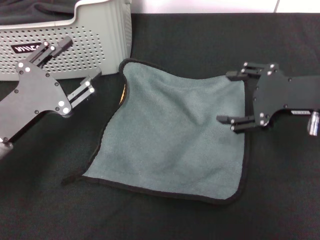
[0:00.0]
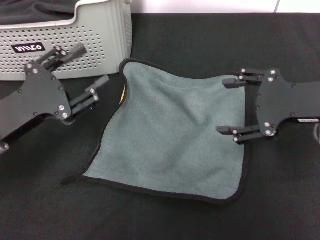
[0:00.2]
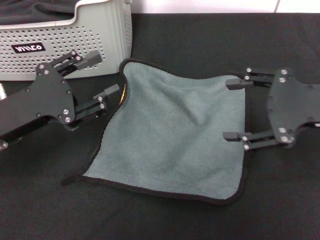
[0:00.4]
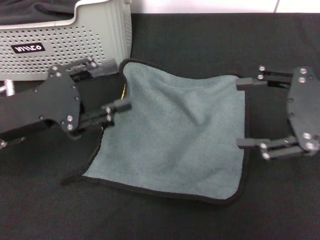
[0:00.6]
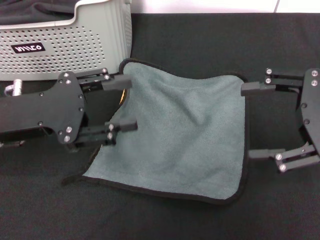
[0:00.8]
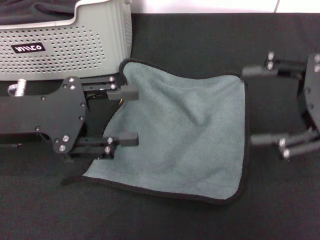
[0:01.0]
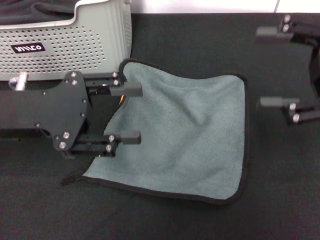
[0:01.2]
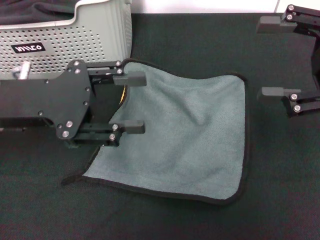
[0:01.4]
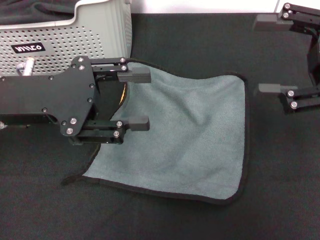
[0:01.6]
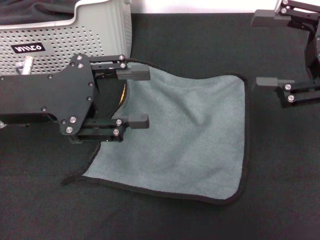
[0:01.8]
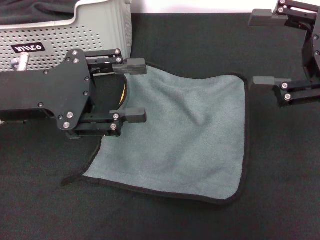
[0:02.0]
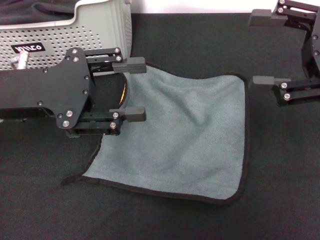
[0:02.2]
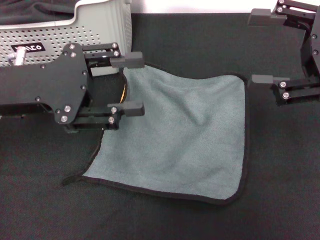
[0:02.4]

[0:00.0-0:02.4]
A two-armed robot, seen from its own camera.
Task of the whole recording: pick up the towel from the storage box and lay it flat on the black tablecloth.
0:00.0 to 0:01.2: The left gripper goes about 10 cm upward; the right gripper moves approximately 5 cm.
0:01.2 to 0:02.4: The grippers move only a little.

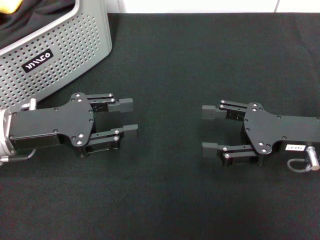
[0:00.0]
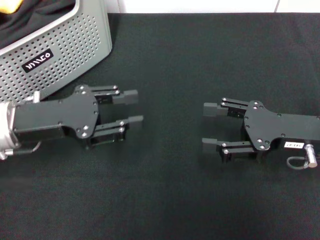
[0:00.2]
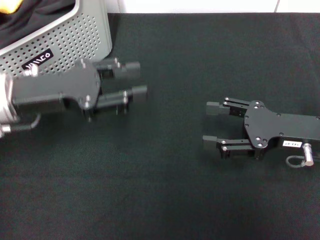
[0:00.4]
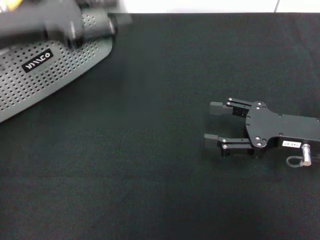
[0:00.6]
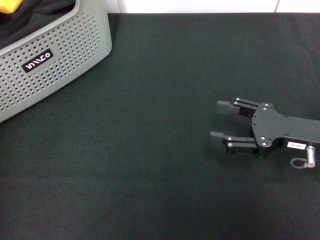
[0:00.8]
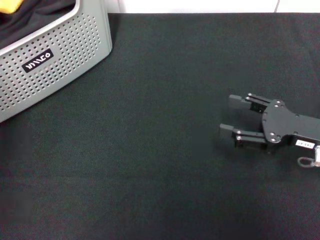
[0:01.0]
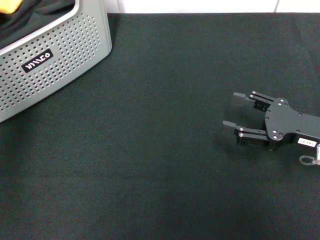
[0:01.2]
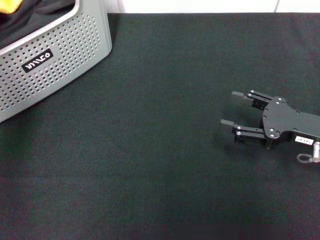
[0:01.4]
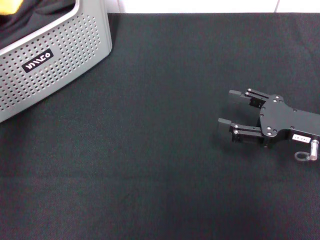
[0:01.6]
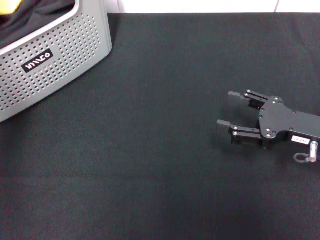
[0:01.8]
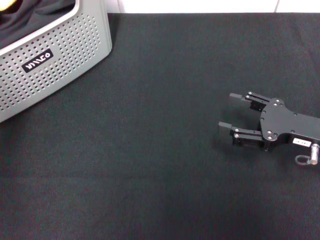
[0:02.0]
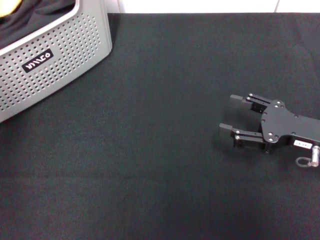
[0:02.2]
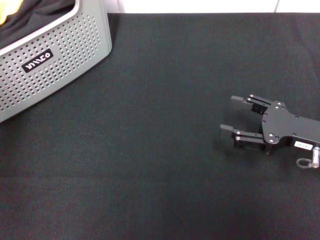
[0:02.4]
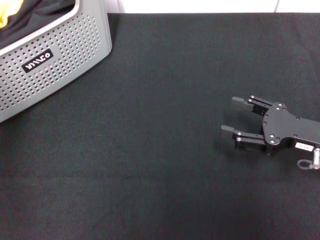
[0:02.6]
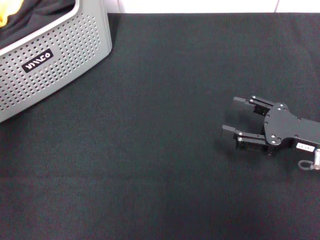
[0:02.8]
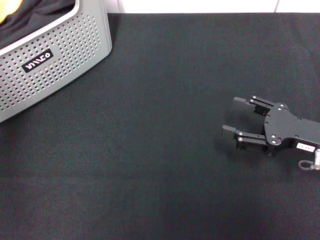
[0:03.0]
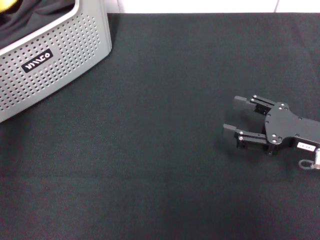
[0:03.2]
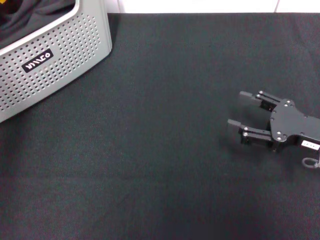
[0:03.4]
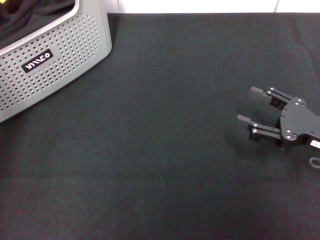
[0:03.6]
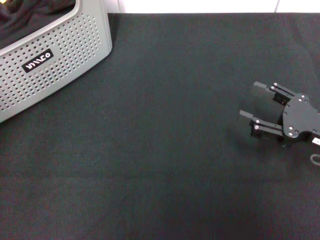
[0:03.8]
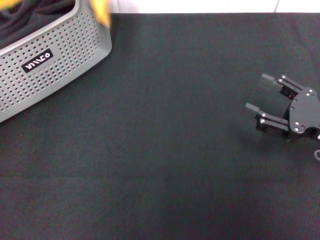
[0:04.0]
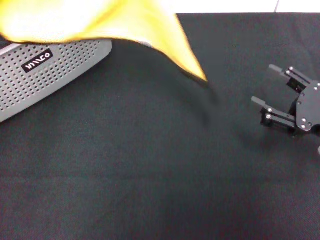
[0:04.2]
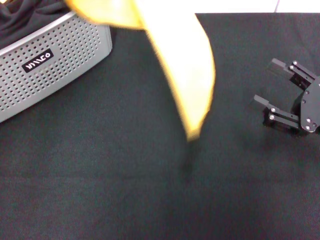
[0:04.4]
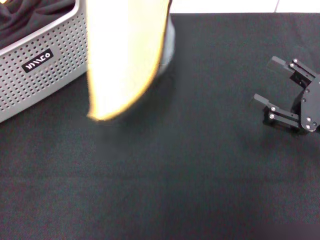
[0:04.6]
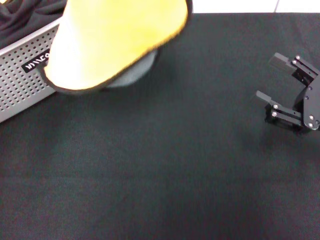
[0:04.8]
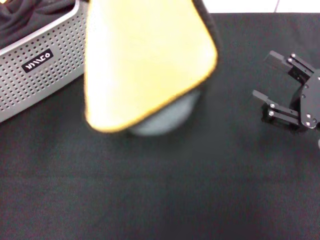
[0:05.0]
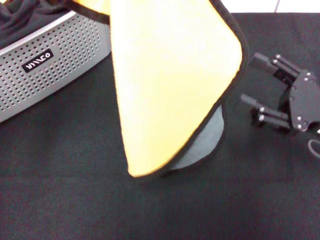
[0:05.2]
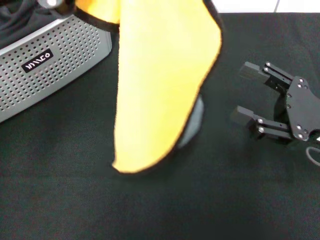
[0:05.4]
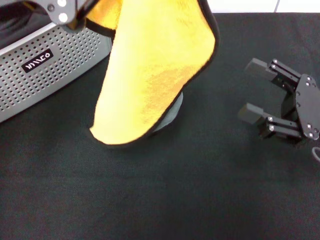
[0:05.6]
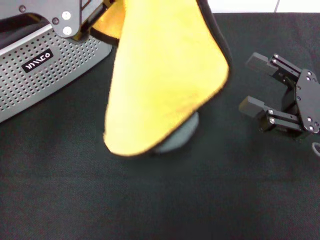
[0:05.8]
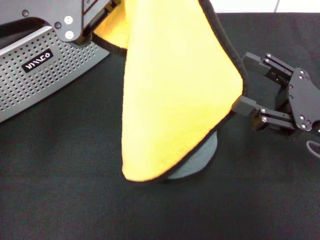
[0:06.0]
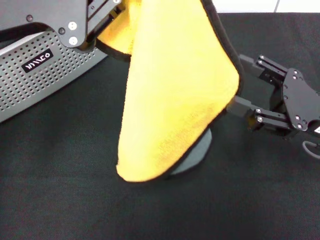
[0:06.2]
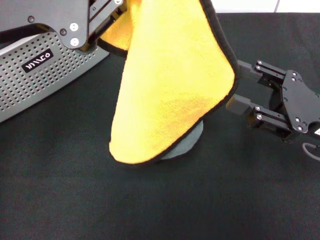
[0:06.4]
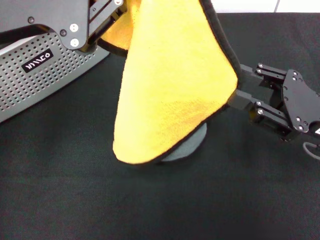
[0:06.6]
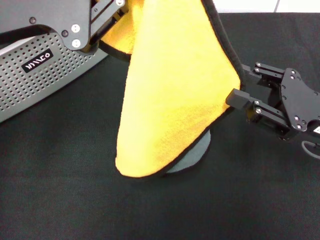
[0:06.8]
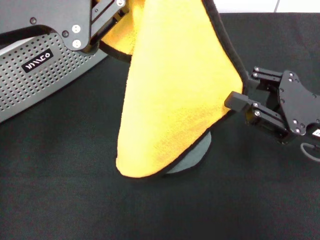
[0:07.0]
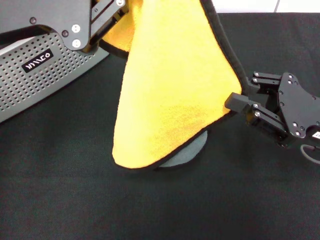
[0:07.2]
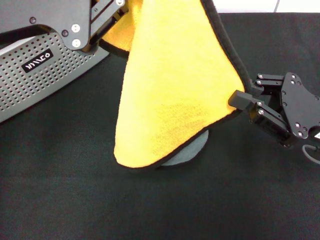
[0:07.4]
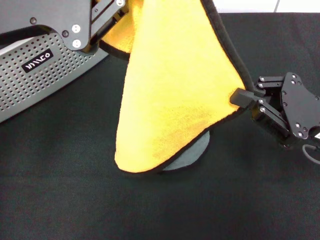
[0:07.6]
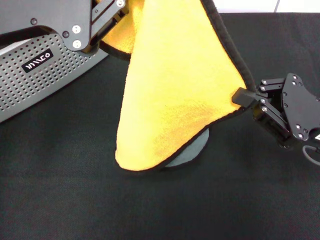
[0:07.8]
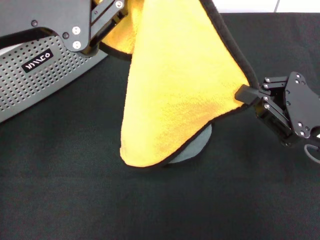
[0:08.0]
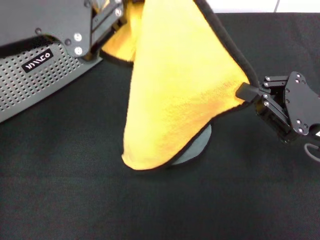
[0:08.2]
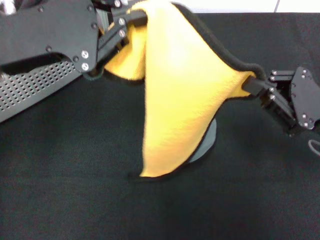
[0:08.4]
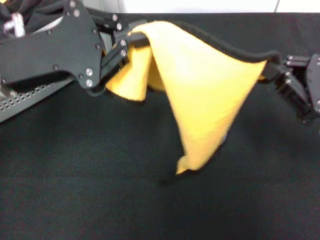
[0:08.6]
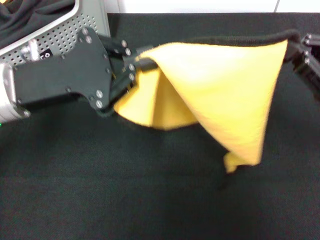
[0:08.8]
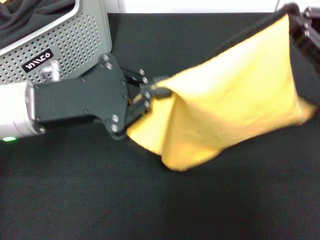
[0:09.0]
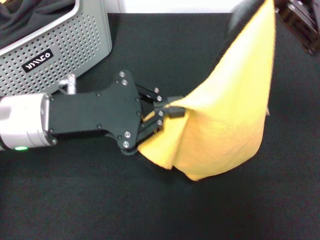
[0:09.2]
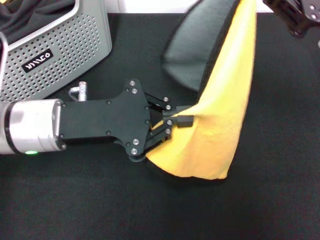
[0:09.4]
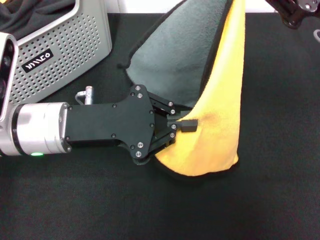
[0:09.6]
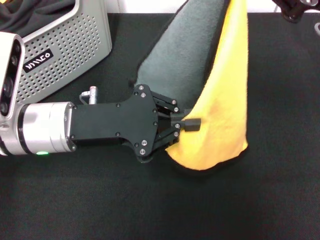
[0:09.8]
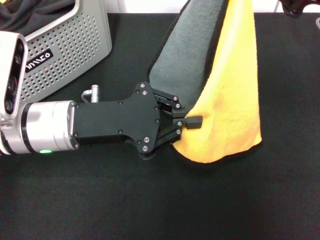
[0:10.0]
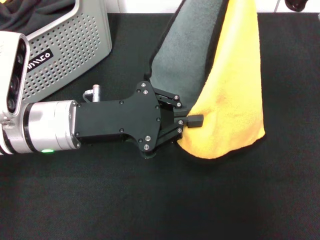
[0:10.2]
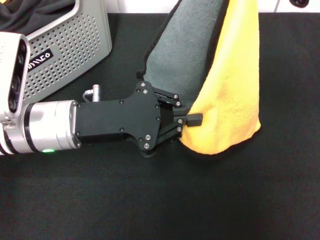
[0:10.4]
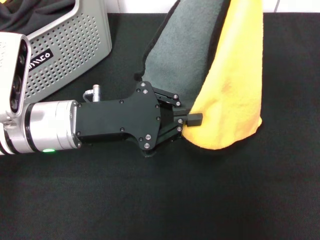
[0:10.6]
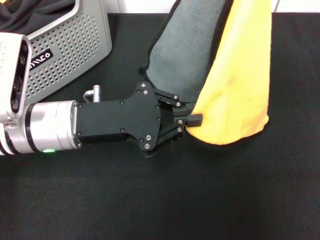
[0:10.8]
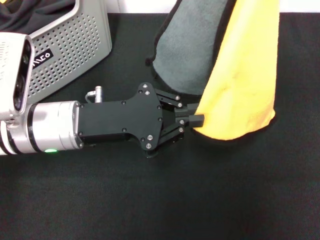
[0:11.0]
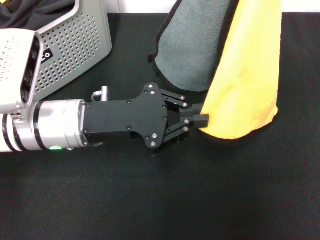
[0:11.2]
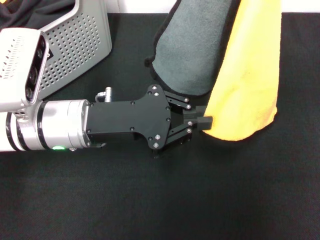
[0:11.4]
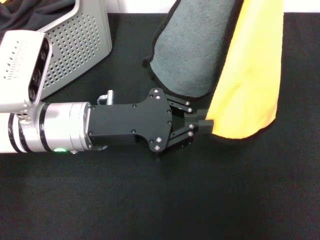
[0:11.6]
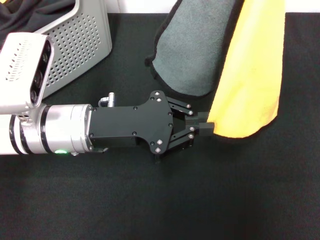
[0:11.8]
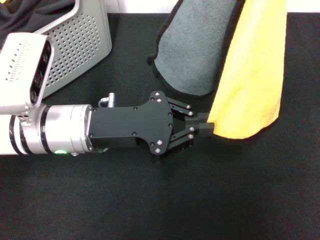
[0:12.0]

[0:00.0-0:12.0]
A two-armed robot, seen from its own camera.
Task of the whole recording: pick up the towel from the storage box and lay it flat on the black tablecloth.
Step, 0:00.0 to 0:03.0: Pick up a towel with the left gripper.
Step, 0:03.2 to 0:07.6: Spread the towel flat with the left gripper.
0:00.0 to 0:01.6: The left gripper is displaced upward and forward by approximately 20 cm.
0:01.6 to 0:03.0: The grippers stay close to where they were, moving slightly.
0:03.0 to 0:04.4: The left gripper travels backward, upward and to the right by some 10 cm, and closes its fingers.
0:04.4 to 0:06.0: The left gripper is displaced downward by about 5 cm.
0:06.0 to 0:07.6: The right gripper closes up.
0:07.6 to 0:09.0: The right gripper travels upward by some 5 cm. Meanwhile the left gripper is displaced downward by roughly 10 cm.
0:09.0 to 0:10.4: The right gripper is displaced upward by some 10 cm.

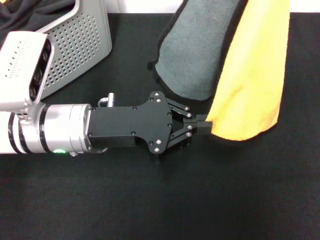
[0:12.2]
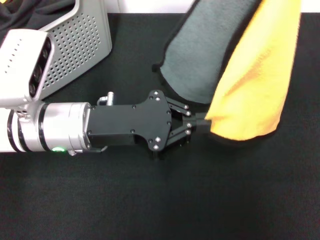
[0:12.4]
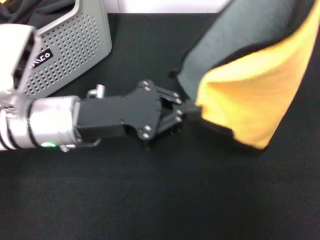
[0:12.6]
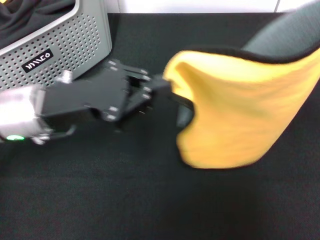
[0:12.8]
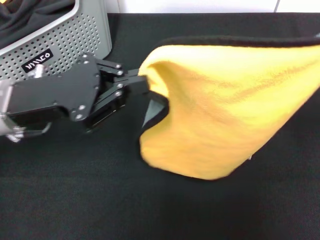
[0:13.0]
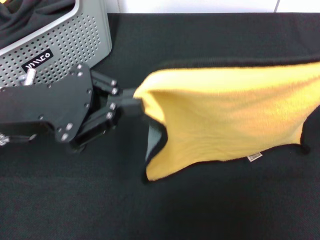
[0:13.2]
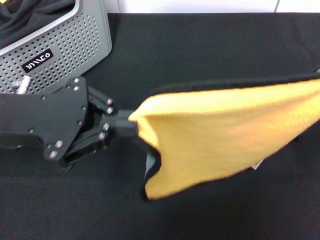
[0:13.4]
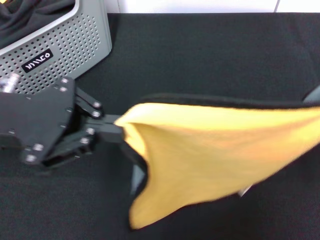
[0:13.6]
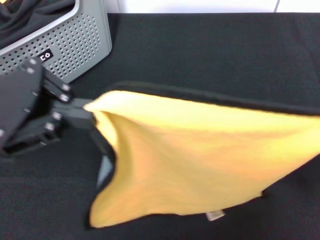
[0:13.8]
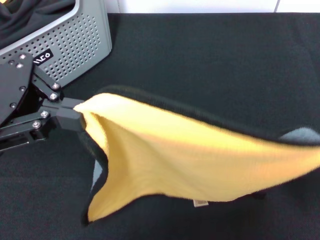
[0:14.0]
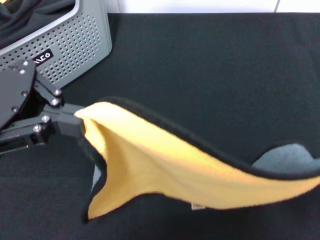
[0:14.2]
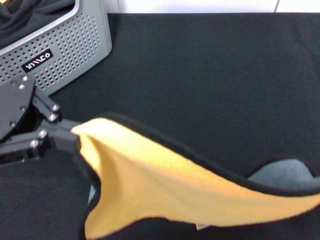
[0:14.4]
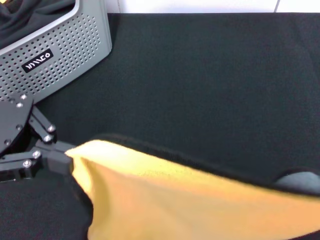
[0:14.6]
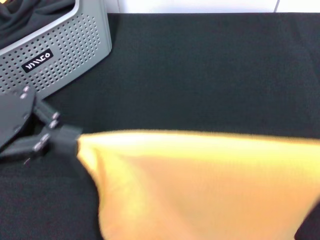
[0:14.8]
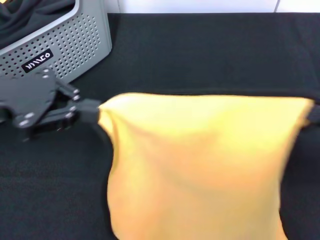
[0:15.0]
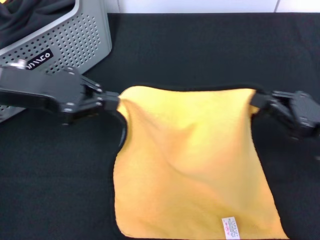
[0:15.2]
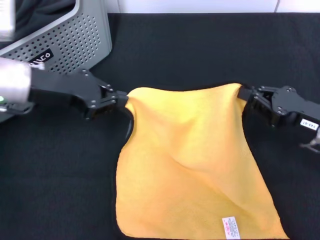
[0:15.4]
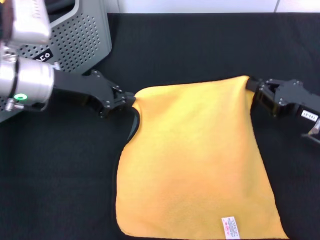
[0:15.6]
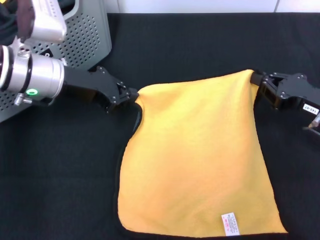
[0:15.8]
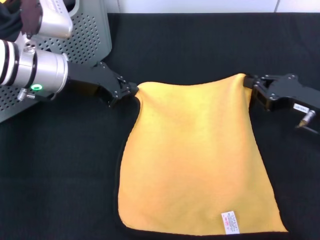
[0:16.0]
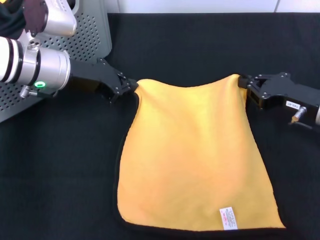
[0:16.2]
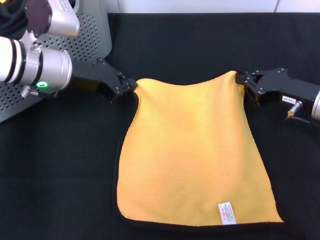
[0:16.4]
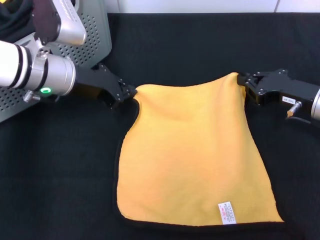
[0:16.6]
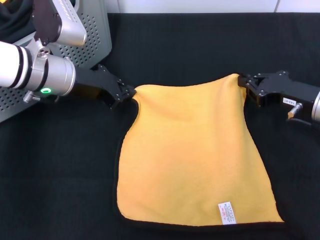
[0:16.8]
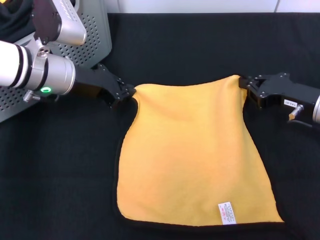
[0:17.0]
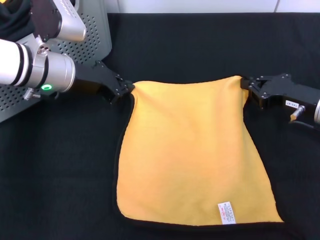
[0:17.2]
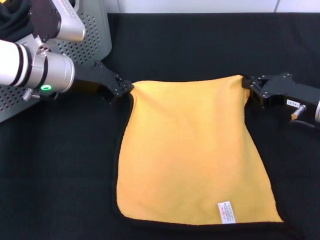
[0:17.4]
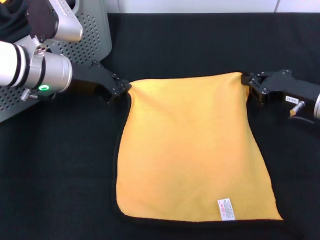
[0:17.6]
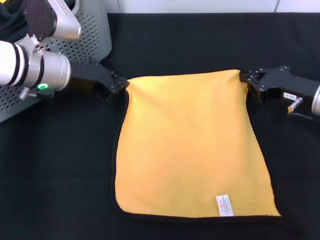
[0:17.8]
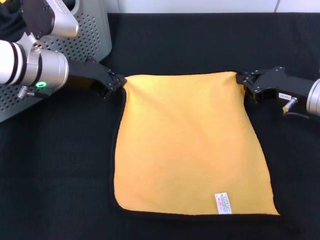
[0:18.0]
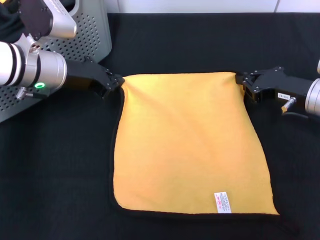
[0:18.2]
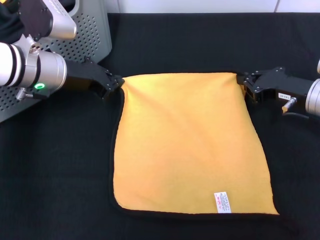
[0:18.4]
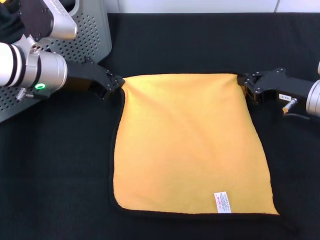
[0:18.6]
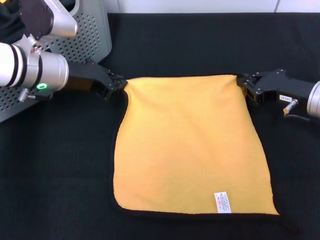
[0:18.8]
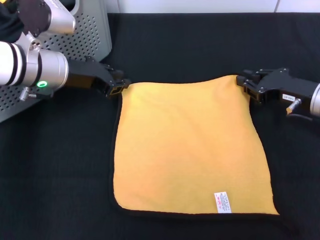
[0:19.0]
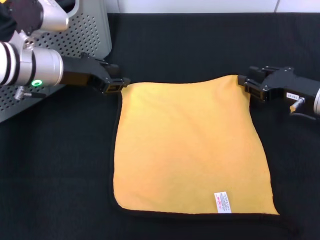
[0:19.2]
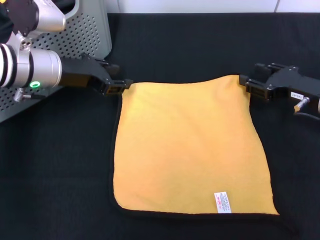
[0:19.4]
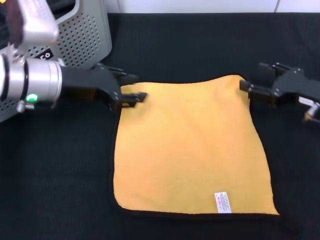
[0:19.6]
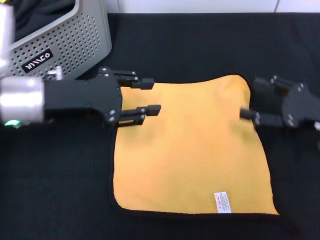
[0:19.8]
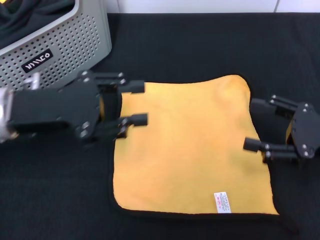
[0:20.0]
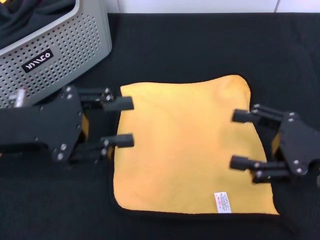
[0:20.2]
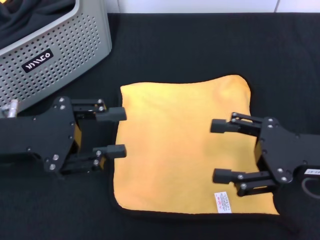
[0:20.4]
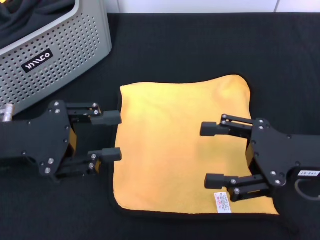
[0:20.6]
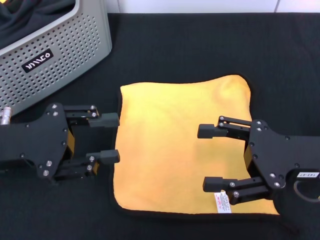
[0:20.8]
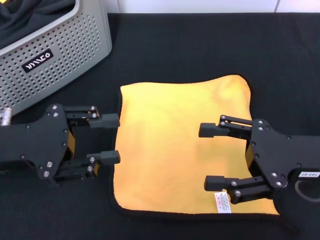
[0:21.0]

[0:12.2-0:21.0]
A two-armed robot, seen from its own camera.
Task of the whole recording: pick up the towel from the storage box and lay it flat on the black tablecloth.
Step, 0:12.2 to 0:19.0: Spread the towel flat with the right gripper.
0:12.2 to 0:13.6: The right gripper heads downward, backward and to the right, covering about 20 cm. The left gripper shifts approximately 10 cm to the left and upward.
0:13.6 to 0:15.2: The right gripper is displaced to the left and forward by about 5 cm. The left gripper travels forward by approximately 5 cm.
0:15.2 to 0:16.6: The left gripper heads to the right, forward and downward, covering some 10 cm. Meanwhile the right gripper travels forward by roughly 10 cm.
0:16.6 to 0:18.0: The grippers stay close to where they were, moving slightly.
0:18.0 to 0:19.6: The right gripper opens its fingers, while the left gripper opens its fingers.
0:19.6 to 0:21.0: The left gripper goes approximately 15 cm backward and to the left. The right gripper heads backward, covering about 10 cm, and opens.
